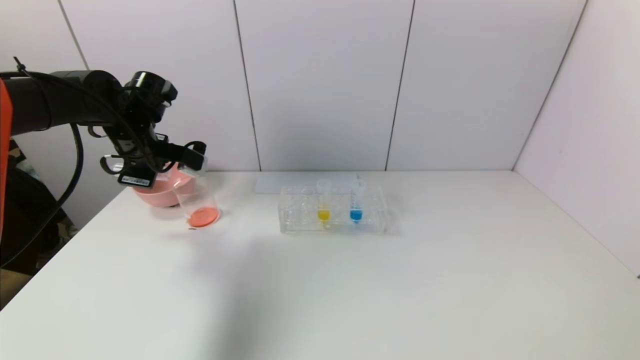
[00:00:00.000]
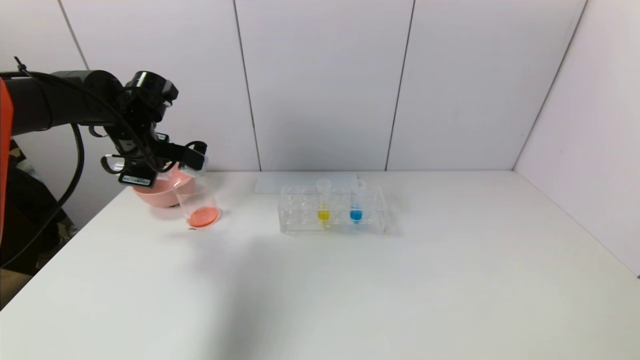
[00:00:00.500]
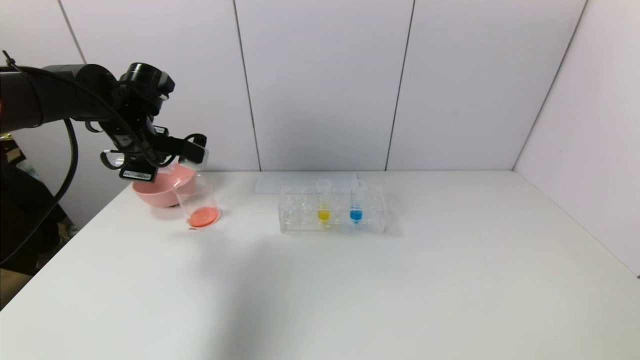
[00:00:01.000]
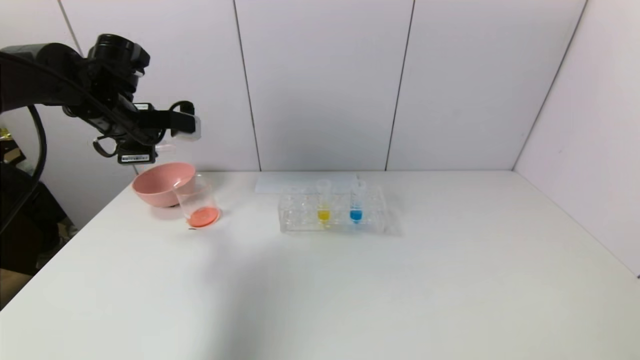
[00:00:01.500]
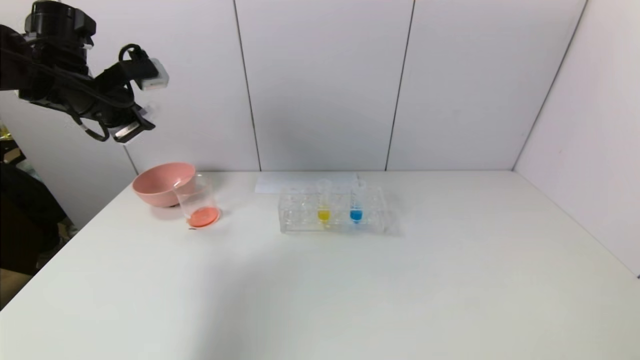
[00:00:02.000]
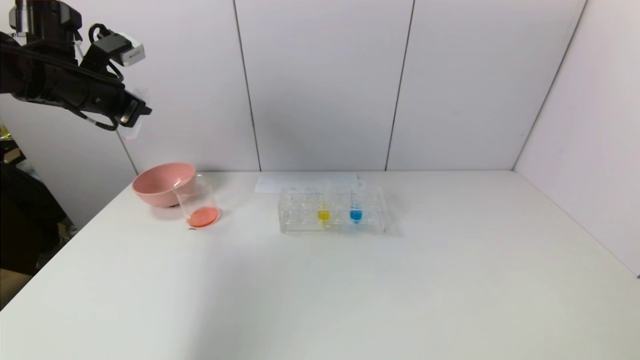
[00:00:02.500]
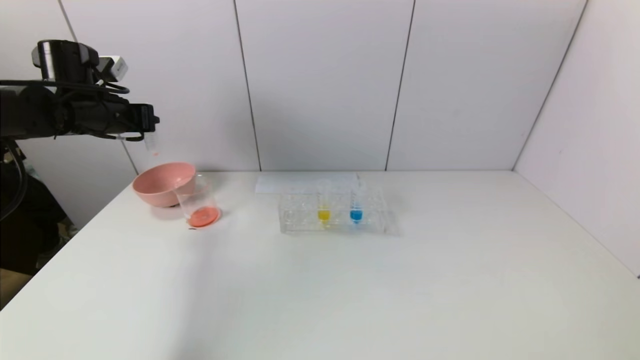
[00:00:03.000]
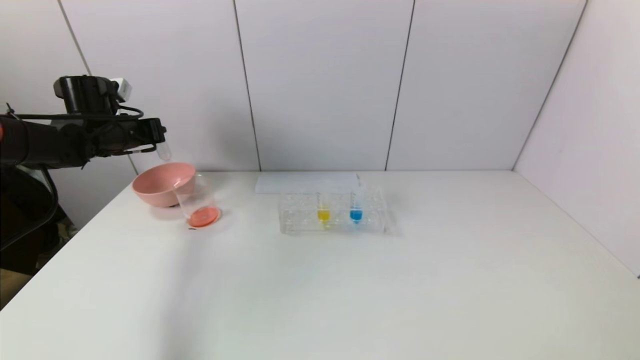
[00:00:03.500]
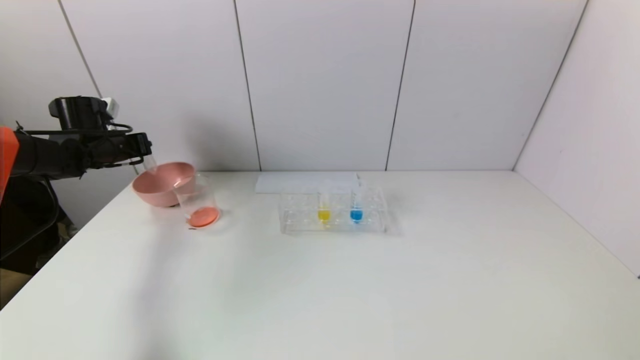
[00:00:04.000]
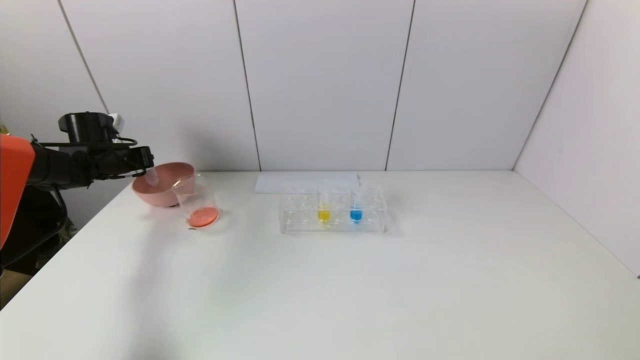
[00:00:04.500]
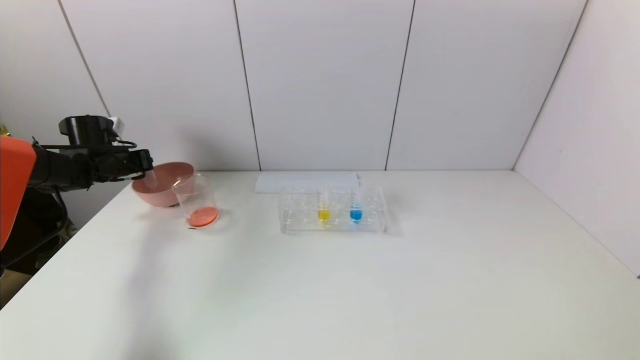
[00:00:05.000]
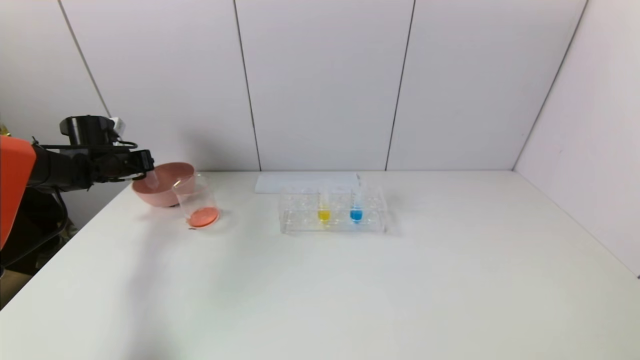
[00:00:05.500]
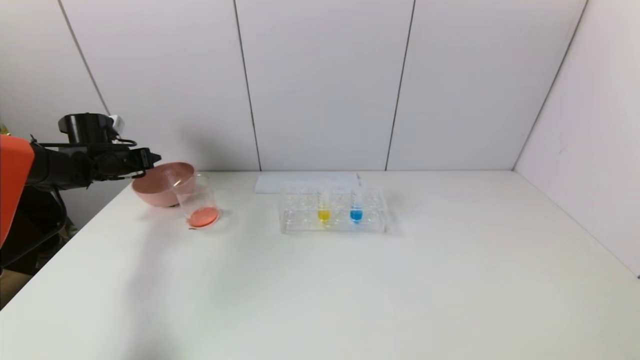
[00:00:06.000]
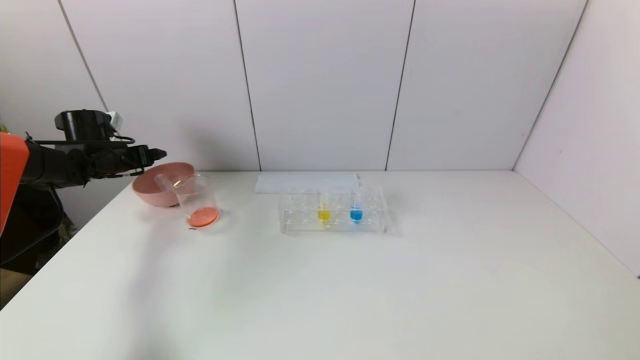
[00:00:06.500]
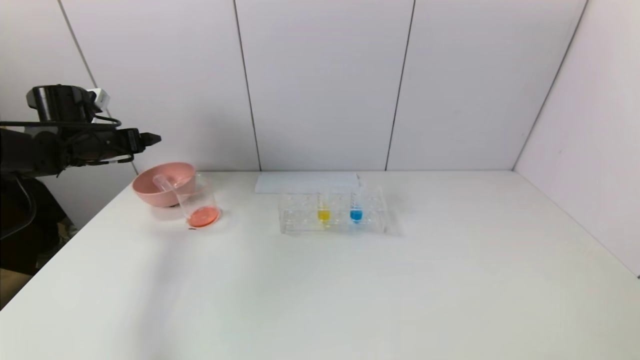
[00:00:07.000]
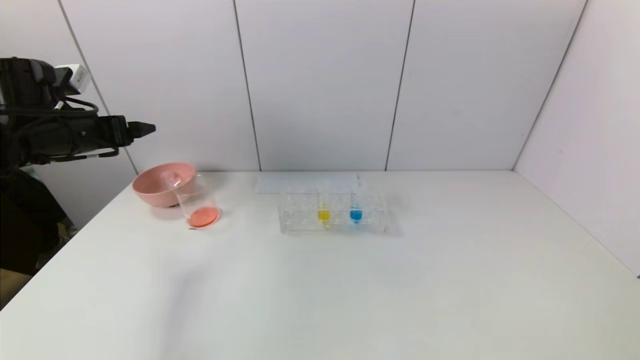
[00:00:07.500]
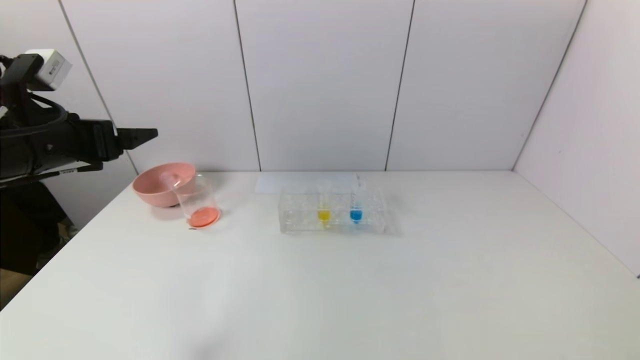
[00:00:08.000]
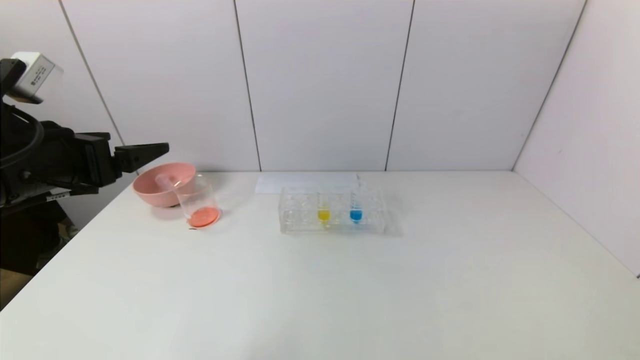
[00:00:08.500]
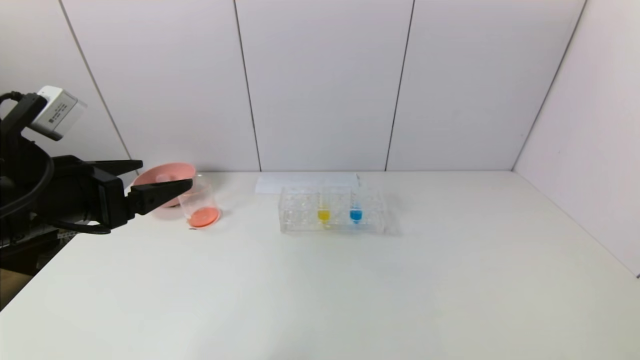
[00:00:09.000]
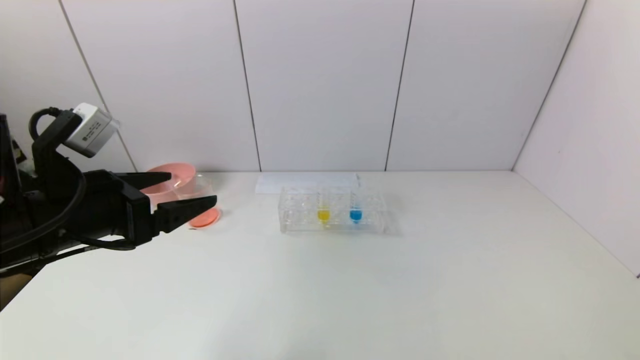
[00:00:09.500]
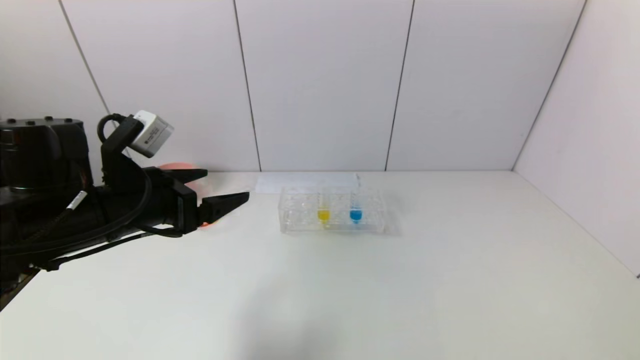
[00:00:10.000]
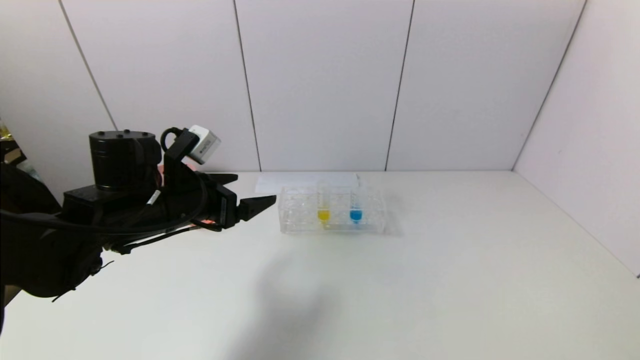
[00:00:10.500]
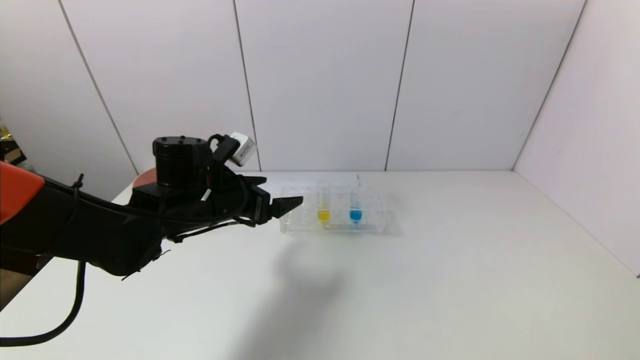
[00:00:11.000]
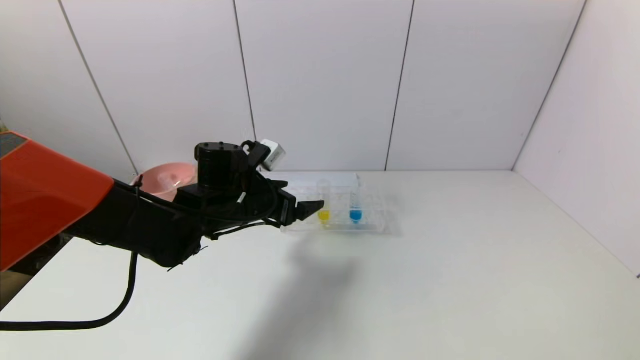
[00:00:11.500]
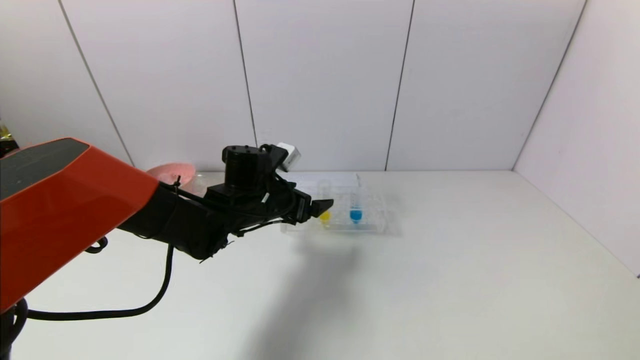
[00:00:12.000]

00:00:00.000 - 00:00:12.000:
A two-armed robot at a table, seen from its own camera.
Task of the whole recording: pick up the test tube with yellow pigment and the test tube with red pigment by grippers and pour them into the beaker.
Step, 00:00:00.000 - 00:00:06.500: Place the test tube into the pink bowl with the left gripper.
00:00:00.000 - 00:00:02.000: The left gripper is displaced upward by approximately 10 cm.
00:00:02.000 - 00:00:04.000: The left gripper heads downward, to the left and forward, covering about 20 cm.
00:00:04.000 - 00:00:06.000: The left gripper opens its fingers.
00:00:06.000 - 00:00:08.000: The left gripper is displaced backward, upward and to the right by roughly 25 cm, and opens up.
00:00:08.000 - 00:00:10.000: The left gripper moves to the right and downward, about 10 cm.
00:00:10.000 - 00:00:12.000: The left gripper shifts some 20 cm to the right, forward and downward.

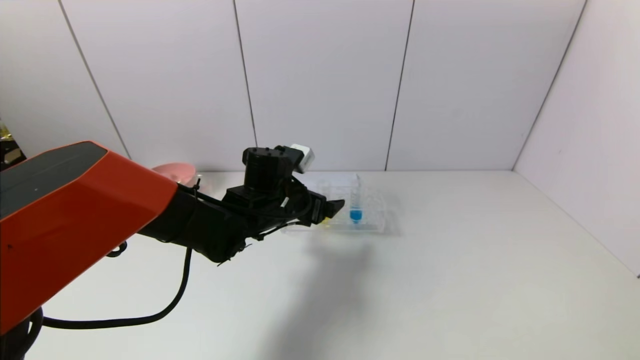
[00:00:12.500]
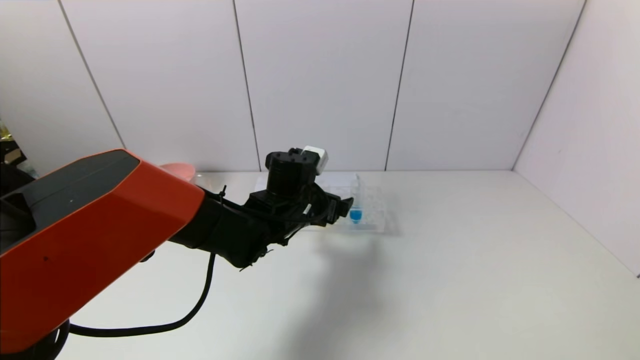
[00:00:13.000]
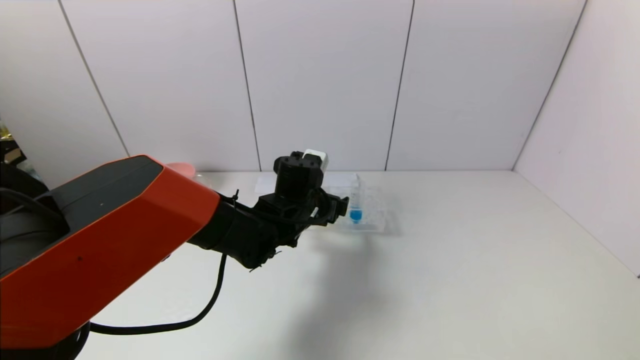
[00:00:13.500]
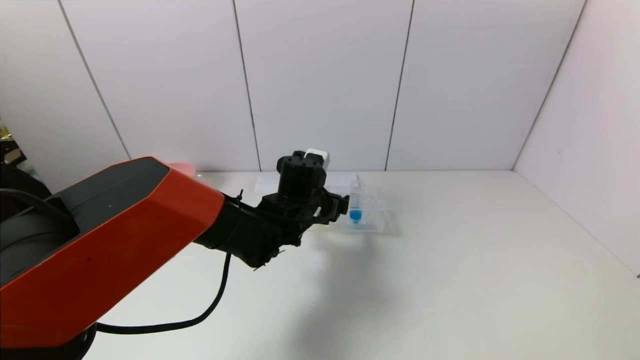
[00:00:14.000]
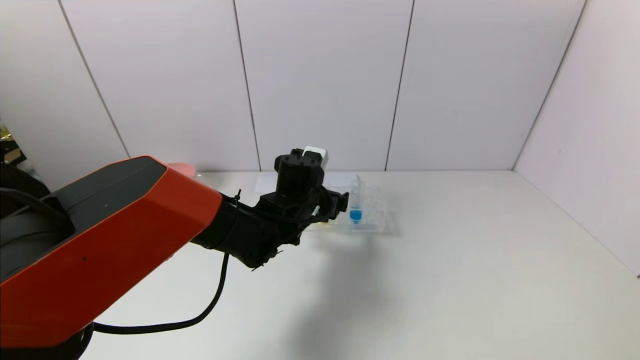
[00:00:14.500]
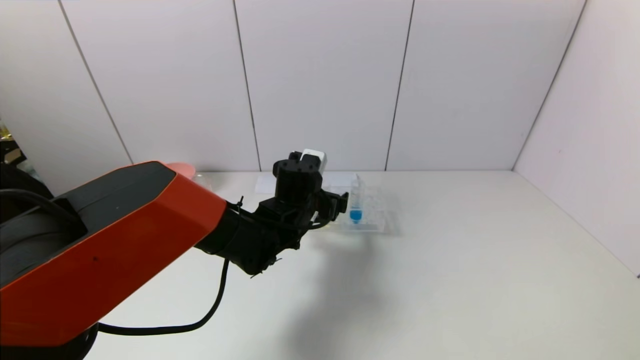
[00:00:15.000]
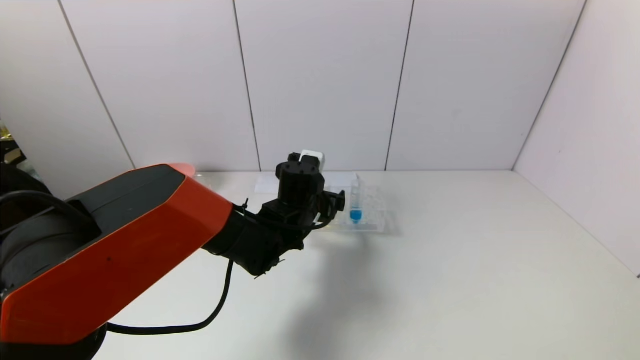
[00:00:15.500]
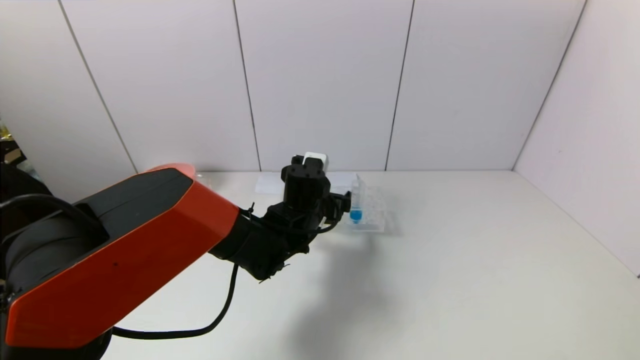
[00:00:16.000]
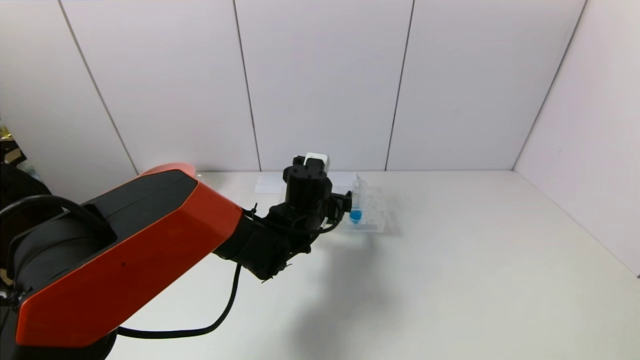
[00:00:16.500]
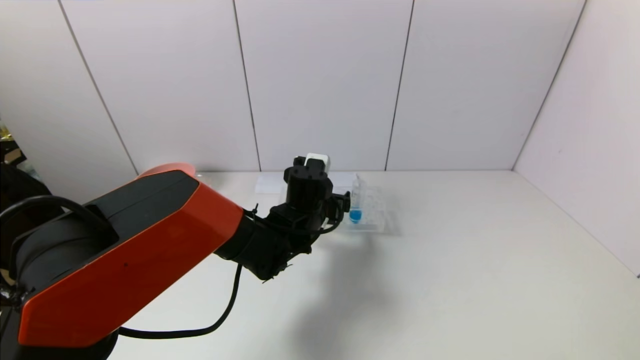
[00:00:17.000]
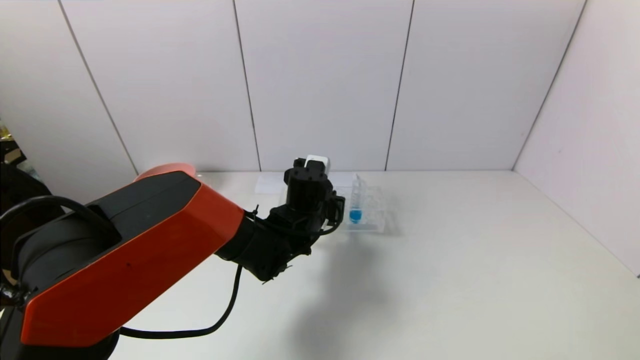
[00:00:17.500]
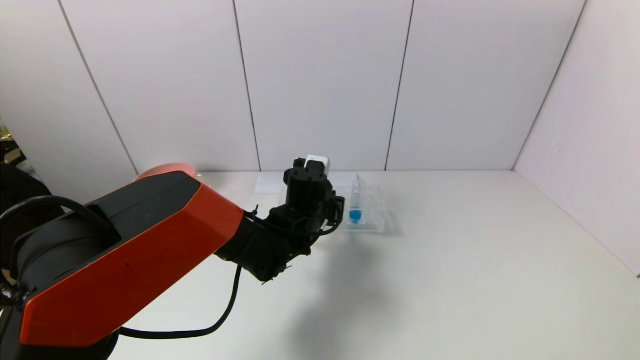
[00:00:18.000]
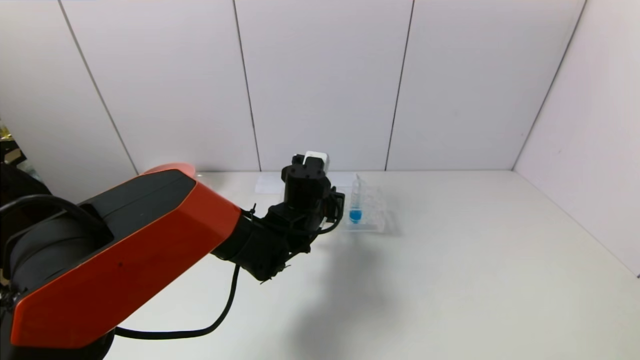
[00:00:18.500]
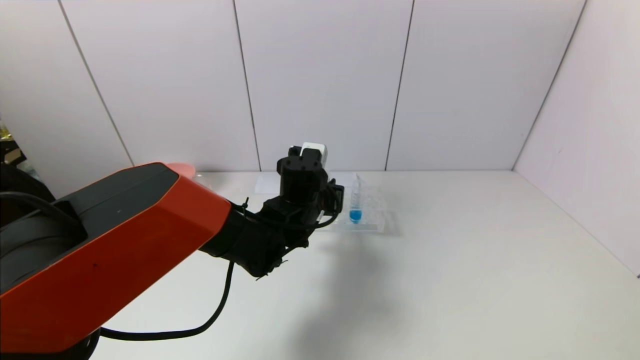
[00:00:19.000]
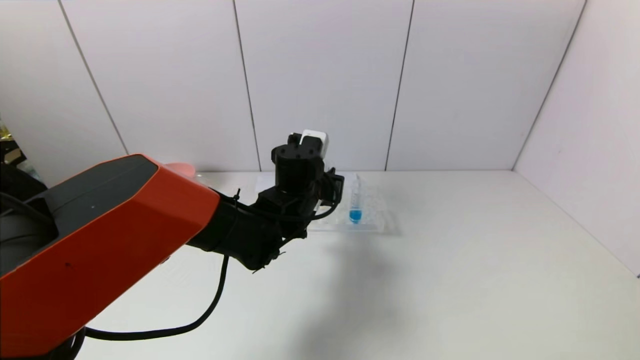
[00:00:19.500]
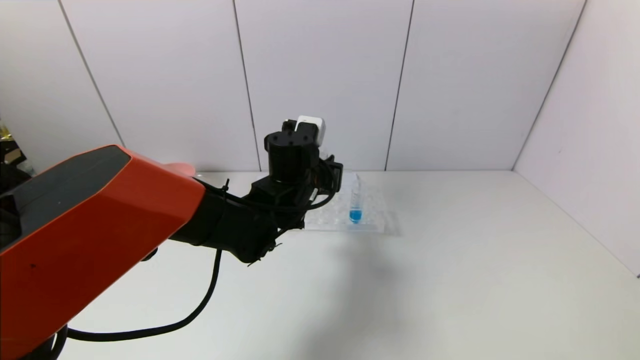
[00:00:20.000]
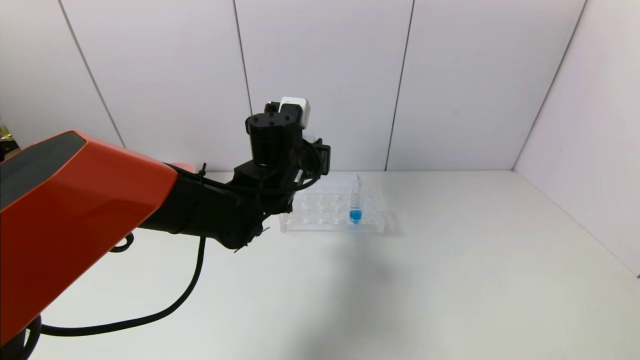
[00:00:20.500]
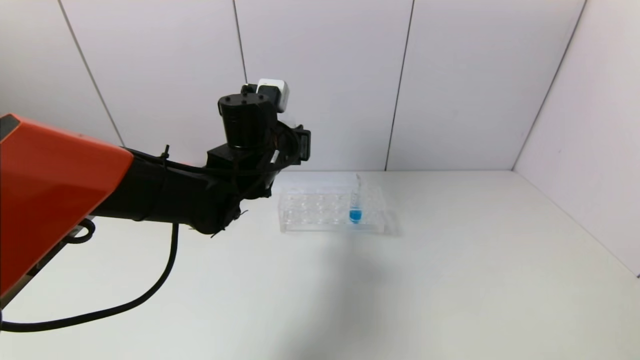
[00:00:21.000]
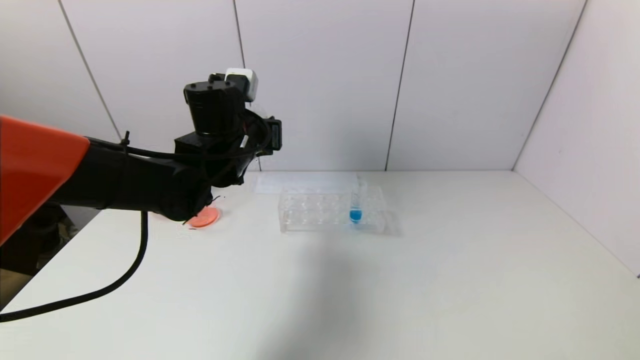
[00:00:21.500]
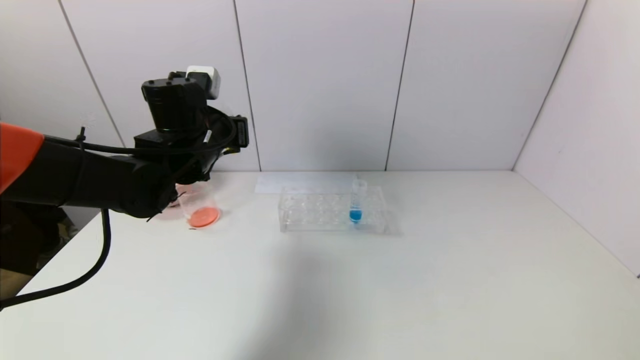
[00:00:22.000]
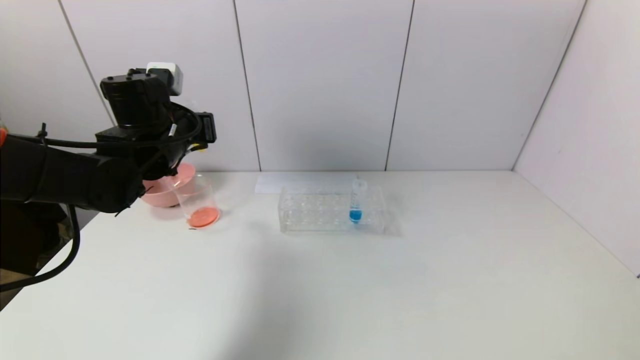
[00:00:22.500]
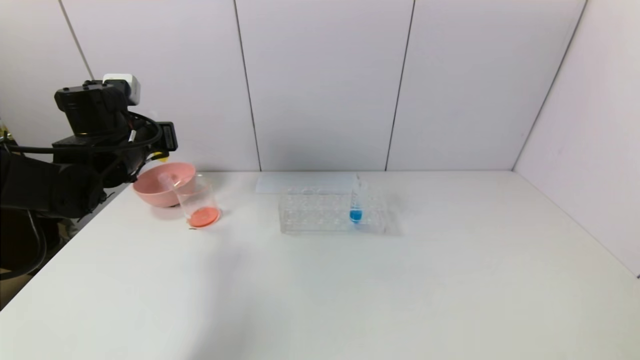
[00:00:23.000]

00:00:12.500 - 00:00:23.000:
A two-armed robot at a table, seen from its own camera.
Task of the whole recording: pick up the test tube with yellow pigment and the test tube with red pigment by grippers and pour them into the beaker.
Step, 00:00:12.500 - 00:00:17.500: Grasp the yellow reagent with the left gripper.
00:00:12.500 - 00:00:16.500: The grippers move only a little.
00:00:16.500 - 00:00:19.000: The left gripper closes its fingers.
00:00:19.000 - 00:00:21.000: The left gripper is displaced upward and to the left by roughly 10 cm.
00:00:21.000 - 00:00:23.000: The left gripper travels to the left by some 20 cm.
